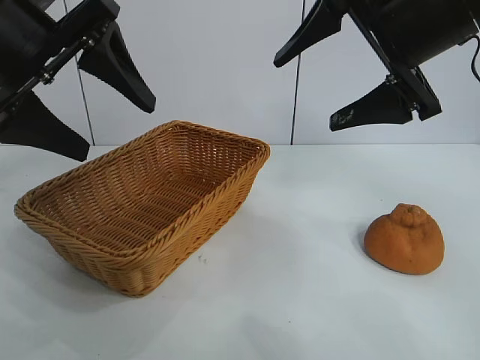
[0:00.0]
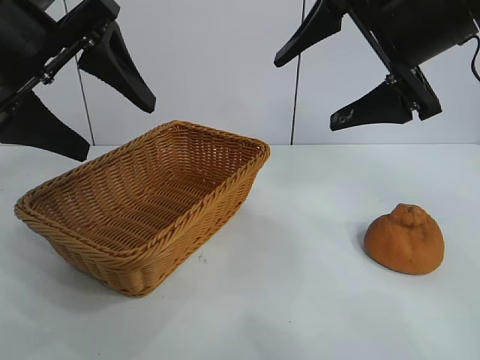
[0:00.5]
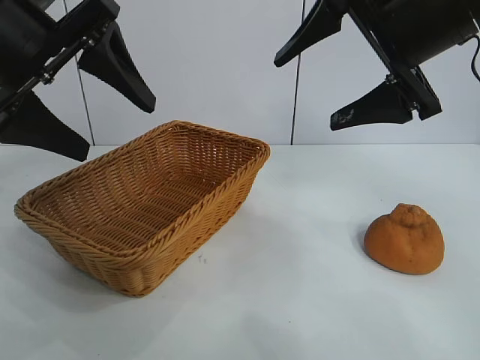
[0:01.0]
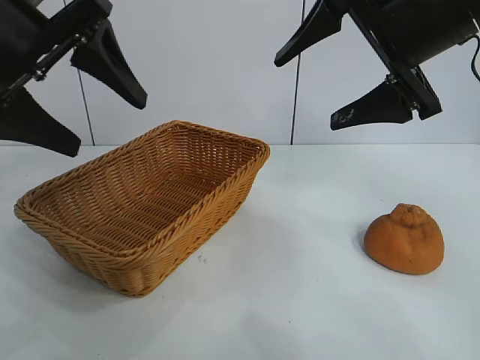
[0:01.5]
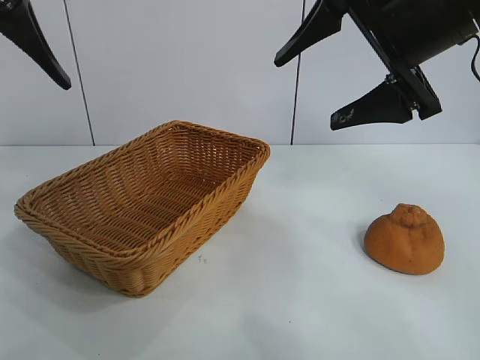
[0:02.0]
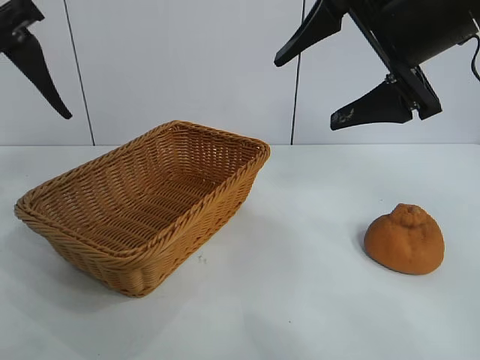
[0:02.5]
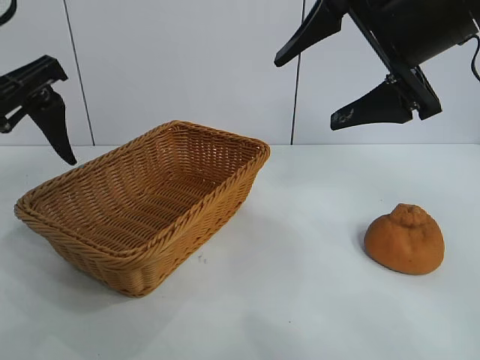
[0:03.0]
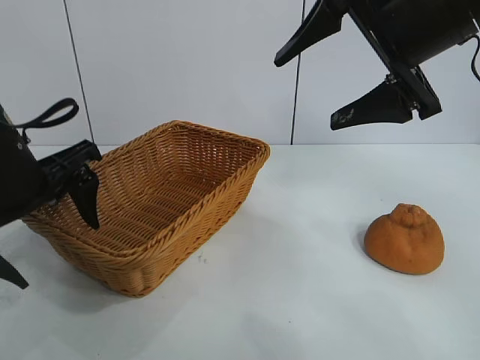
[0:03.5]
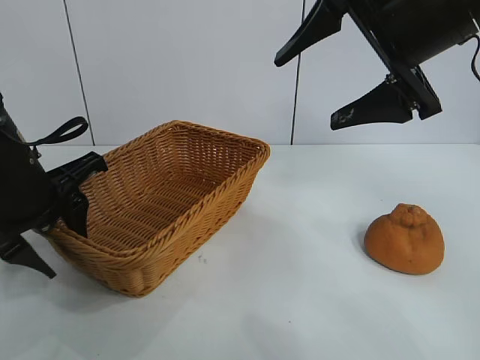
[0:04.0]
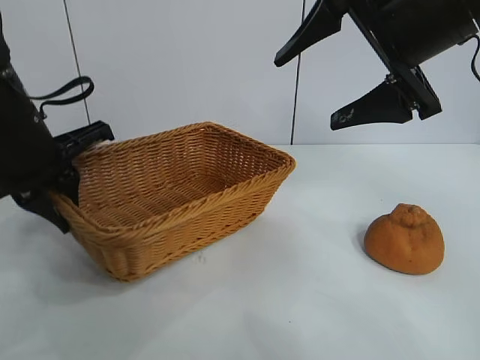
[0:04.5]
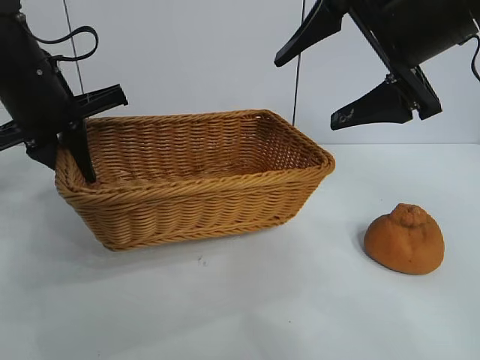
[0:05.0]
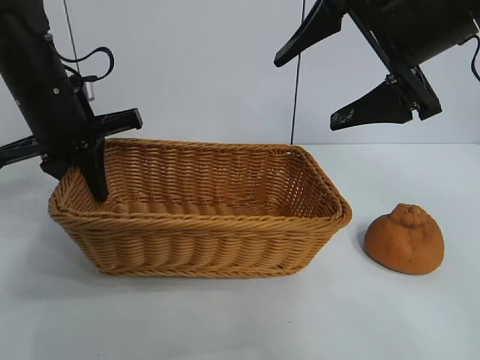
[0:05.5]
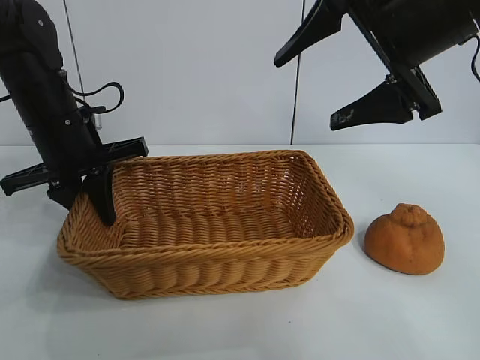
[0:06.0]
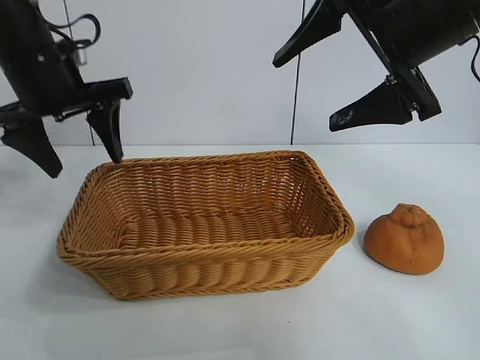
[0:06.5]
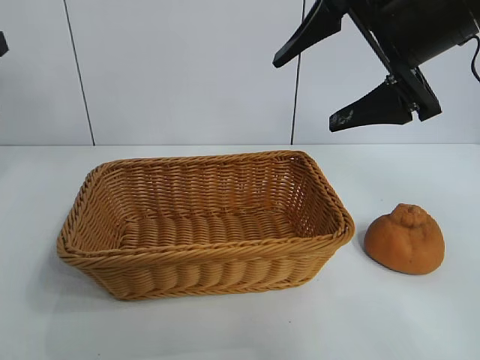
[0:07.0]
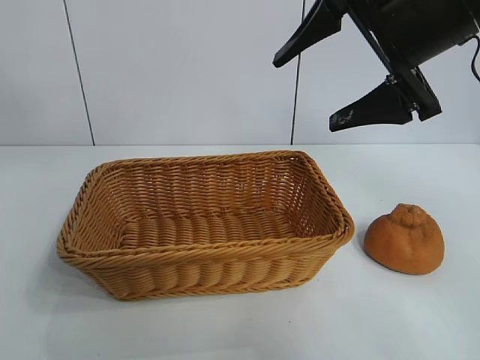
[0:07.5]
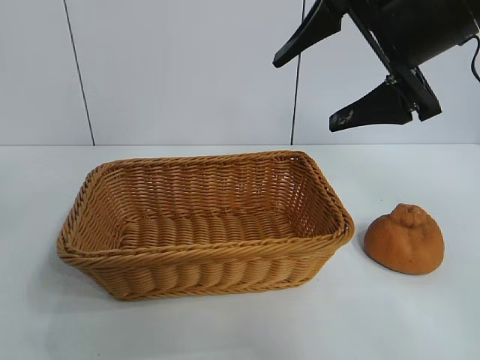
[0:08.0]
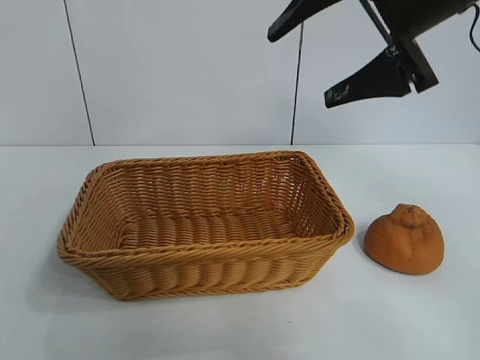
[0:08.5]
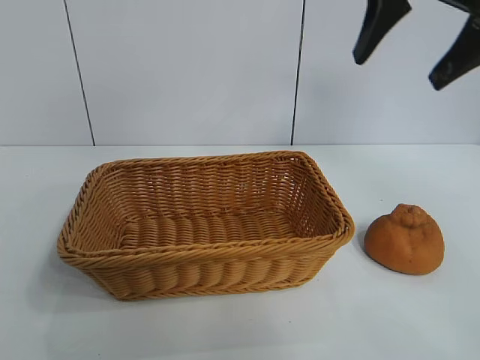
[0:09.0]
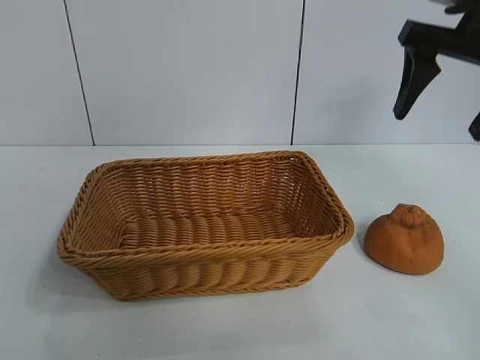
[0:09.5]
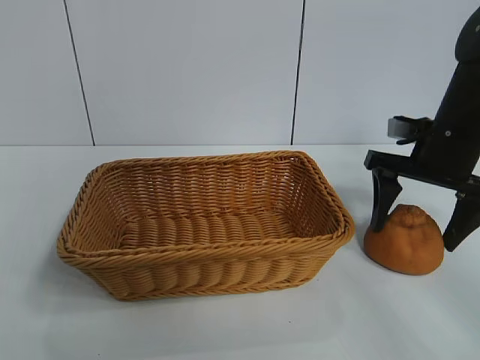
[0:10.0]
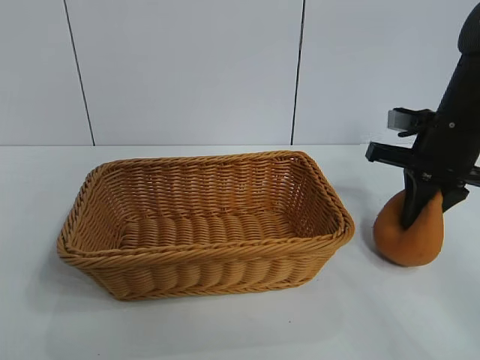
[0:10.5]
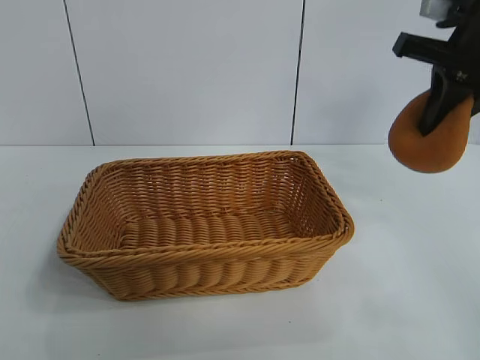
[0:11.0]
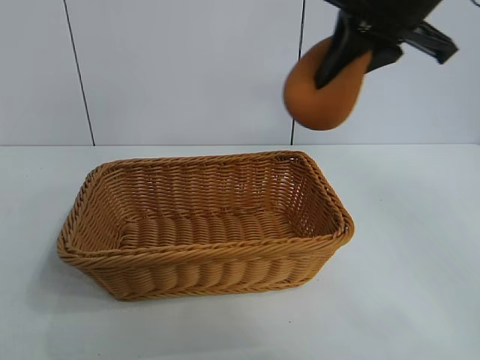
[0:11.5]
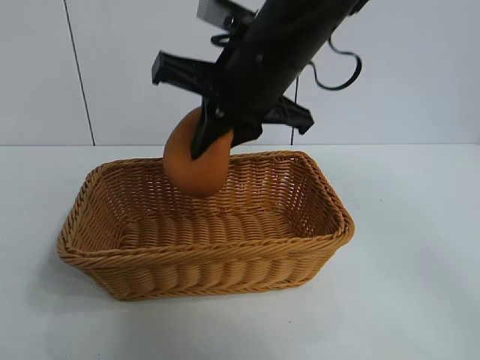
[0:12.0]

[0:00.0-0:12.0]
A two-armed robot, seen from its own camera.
Task of the whole recording: pick up the orange and put it into the basket.
Step, 0:01.5 to 0:04.0: Grasp the basket with left gripper.
Step, 0:04.5 to 0:06.0: Place the basket in the center of view with left gripper.
Step, 0:06.5 to 0:10.0: Grasp the orange with right gripper.

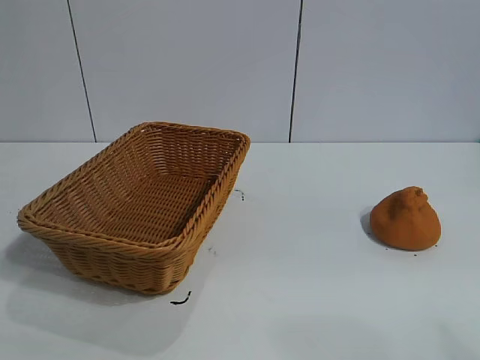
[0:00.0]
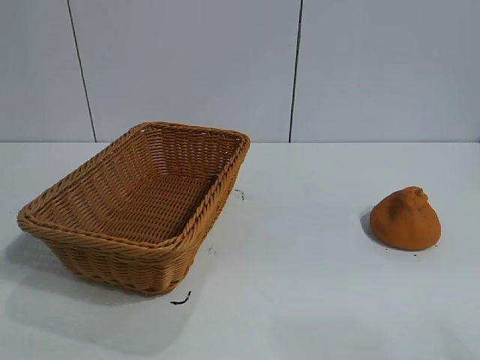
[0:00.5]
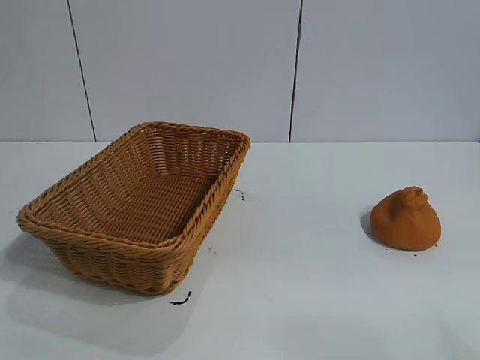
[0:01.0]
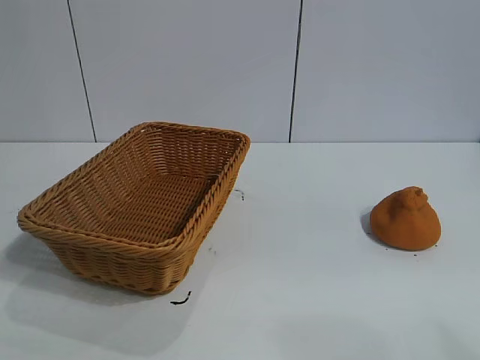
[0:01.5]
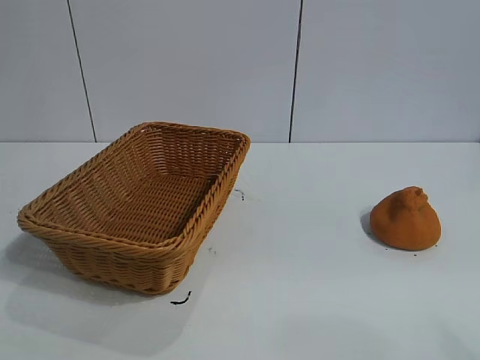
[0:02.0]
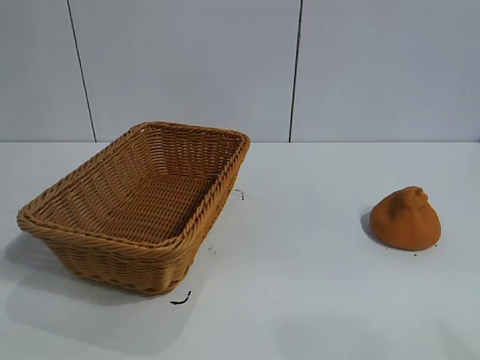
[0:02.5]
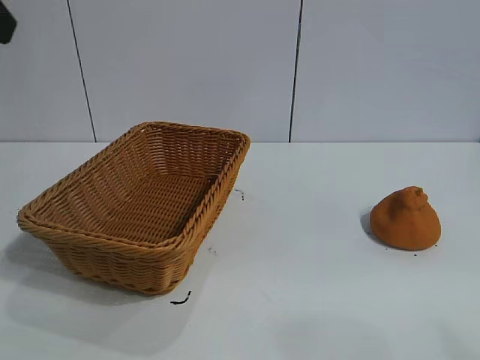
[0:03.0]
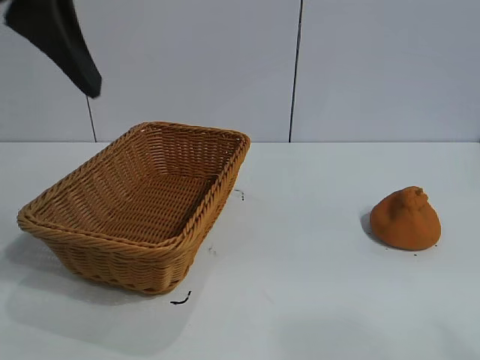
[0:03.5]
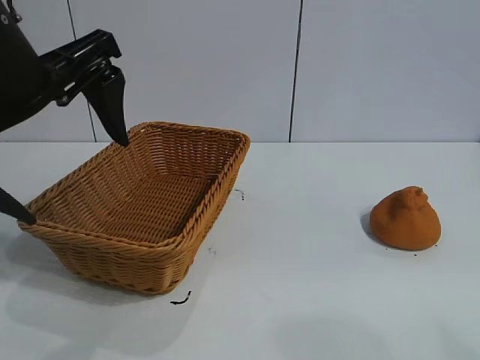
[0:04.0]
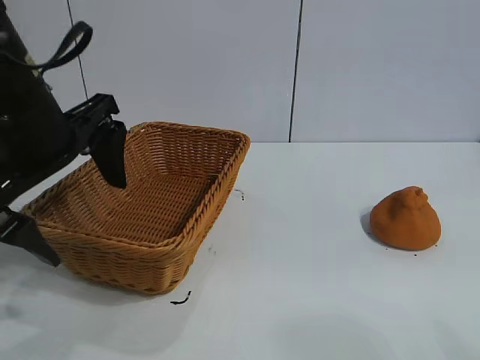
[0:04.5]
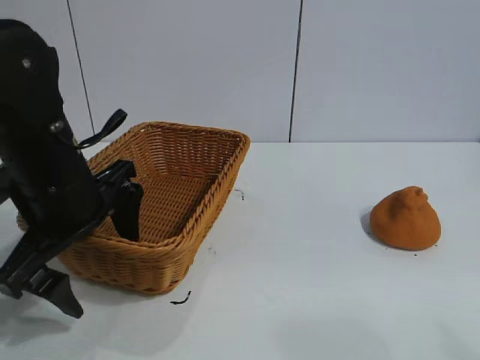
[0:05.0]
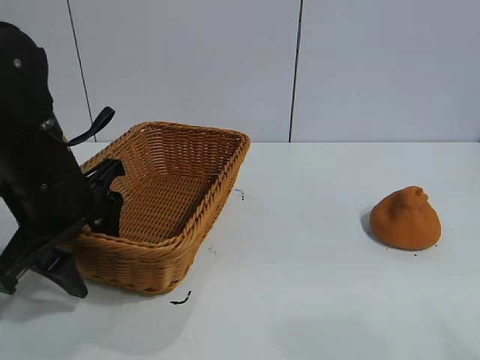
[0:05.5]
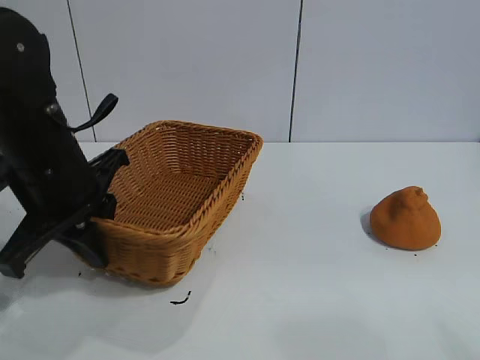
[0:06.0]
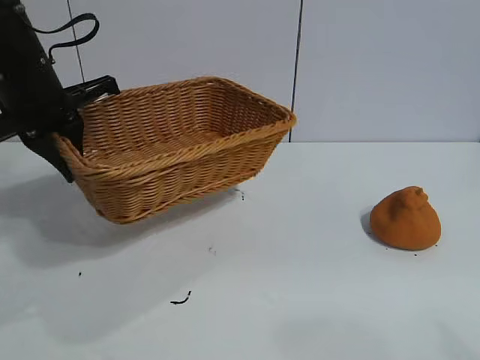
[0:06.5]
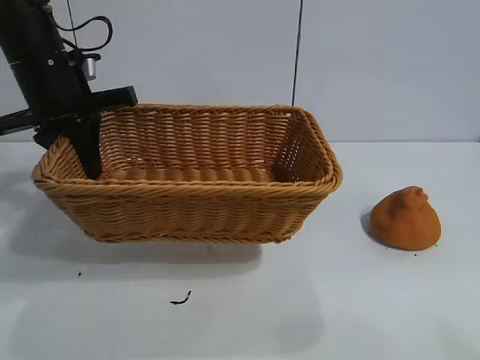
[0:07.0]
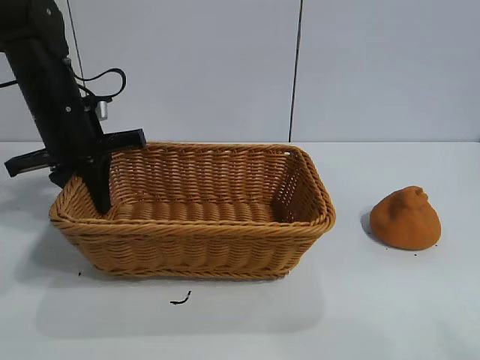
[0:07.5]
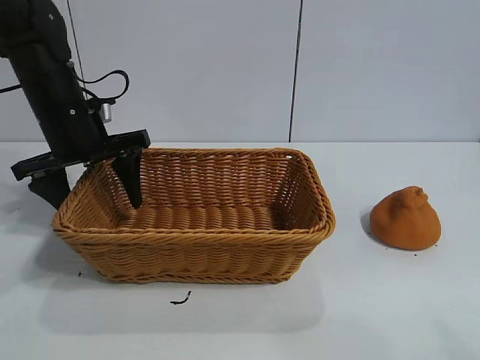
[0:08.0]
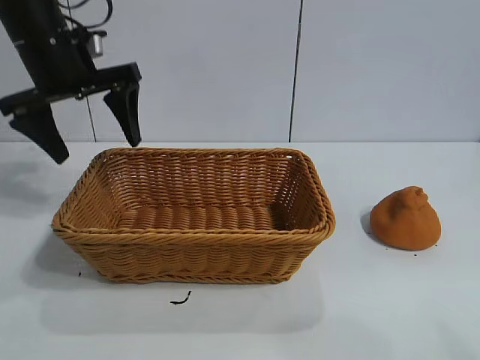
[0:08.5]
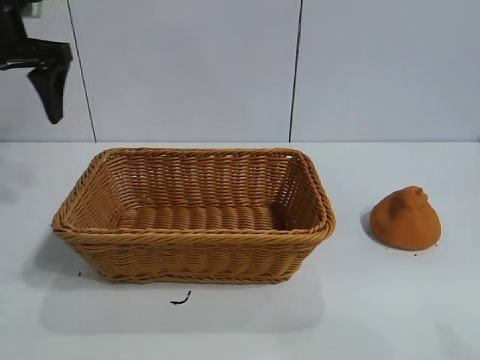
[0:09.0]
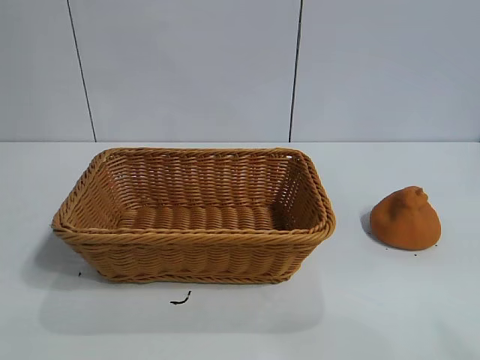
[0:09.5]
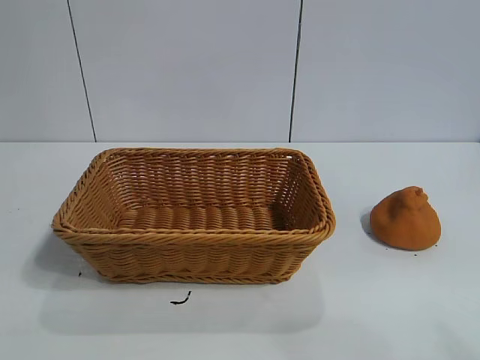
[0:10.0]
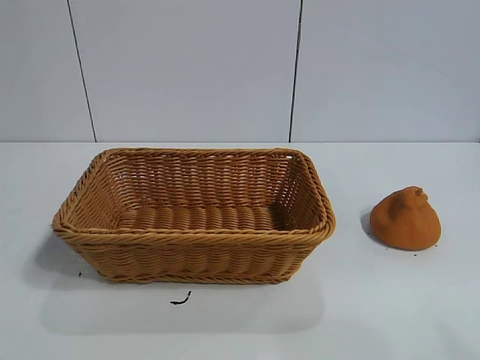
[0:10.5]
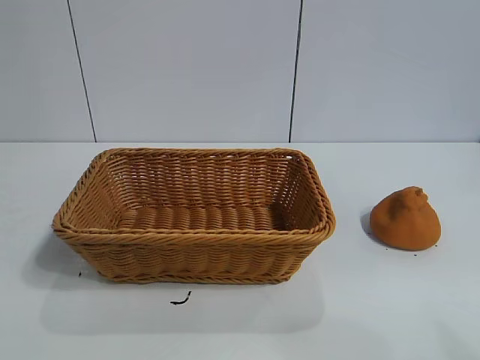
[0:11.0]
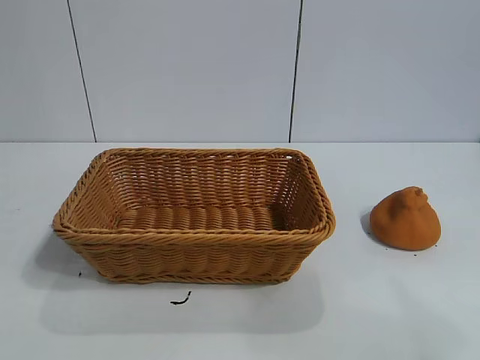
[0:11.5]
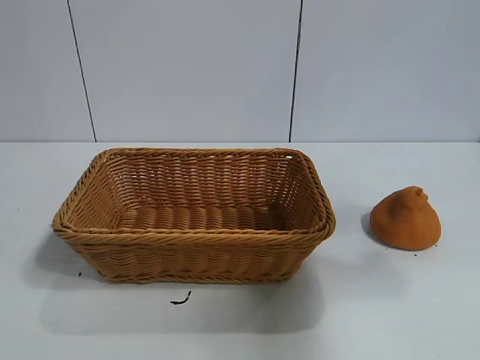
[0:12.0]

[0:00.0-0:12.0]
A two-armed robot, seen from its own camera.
Task of the whole recording: pick up the orange and put it into the basket.
Step, 0:01.5 to 0:05.5: Grasp the basket with left gripper.
Step, 0:06.0 to 0:08.0: Place the basket in the center of view with left gripper.

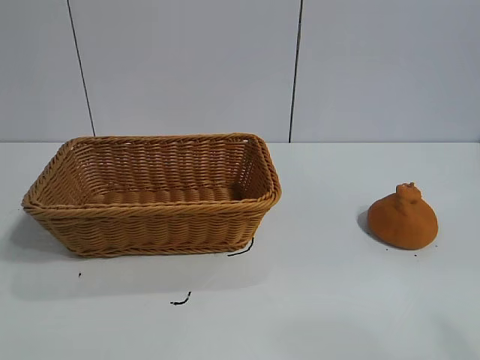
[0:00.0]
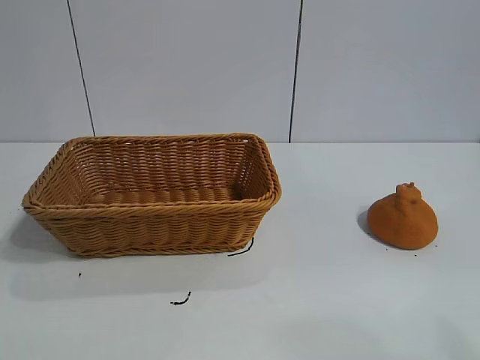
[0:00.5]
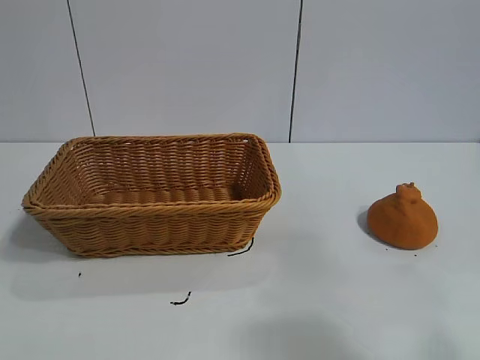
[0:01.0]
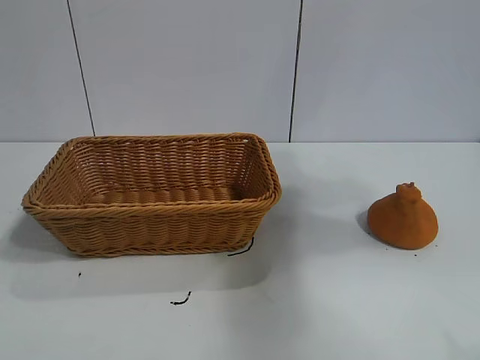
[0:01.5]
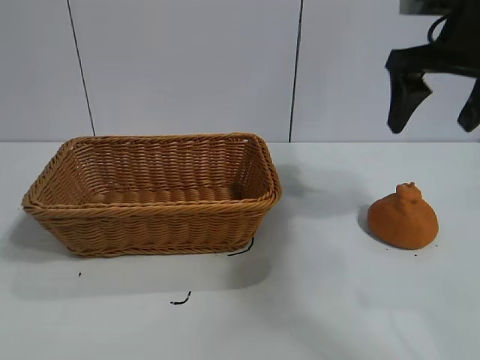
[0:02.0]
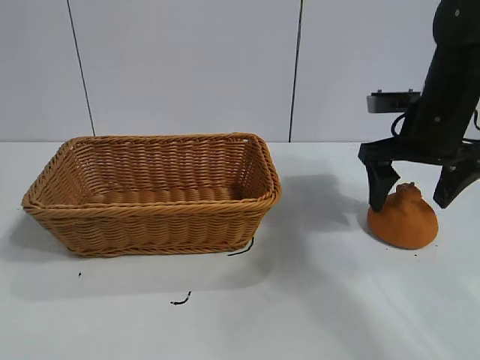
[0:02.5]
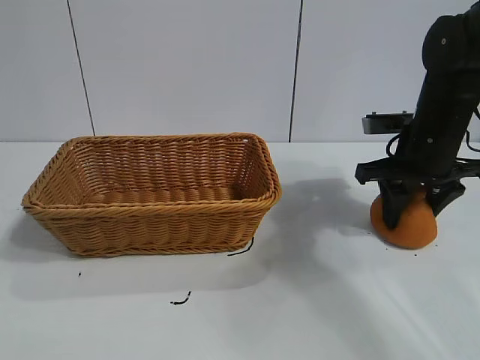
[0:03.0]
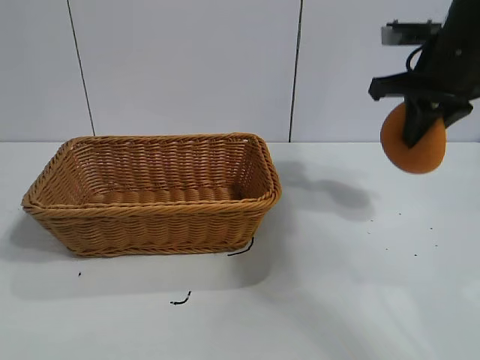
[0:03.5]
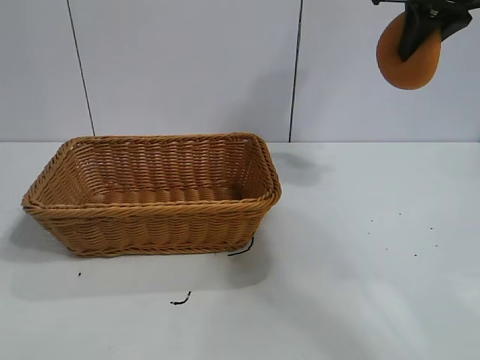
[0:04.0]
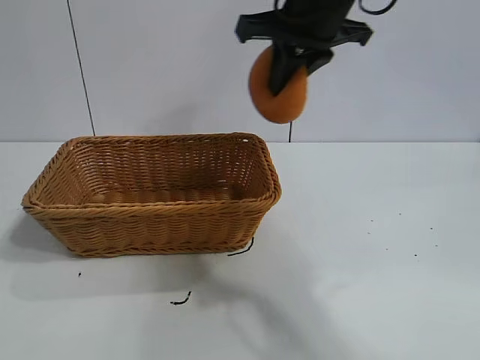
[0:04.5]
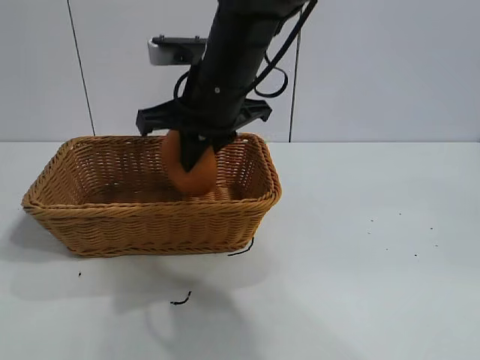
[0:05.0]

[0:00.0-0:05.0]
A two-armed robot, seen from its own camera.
Task of the whole recording: pick up the orange and put it into the basket.
Step, 0:01.0 to 0:03.0: Grasp the orange with right gripper.
